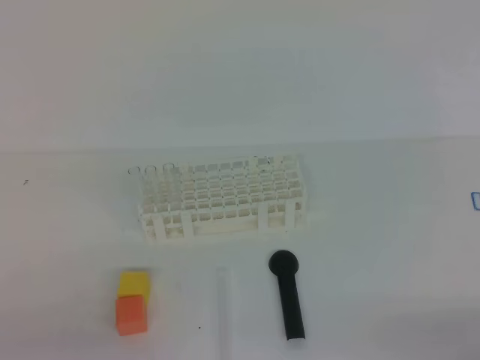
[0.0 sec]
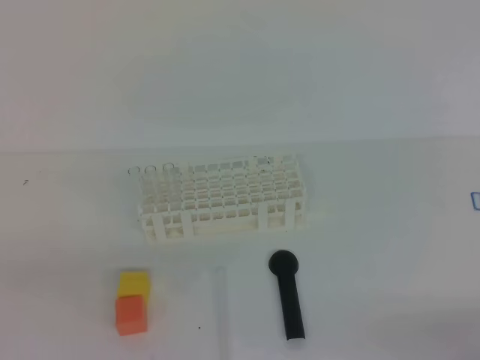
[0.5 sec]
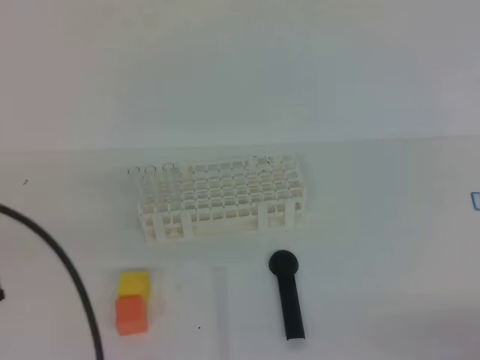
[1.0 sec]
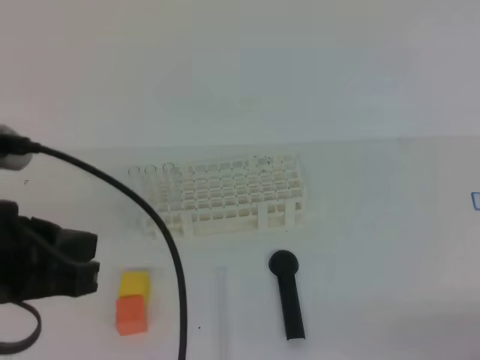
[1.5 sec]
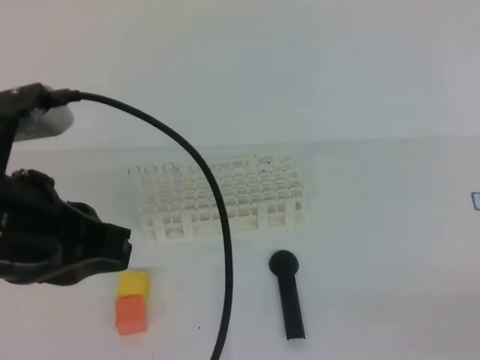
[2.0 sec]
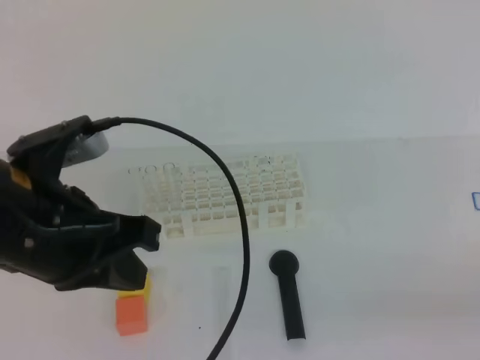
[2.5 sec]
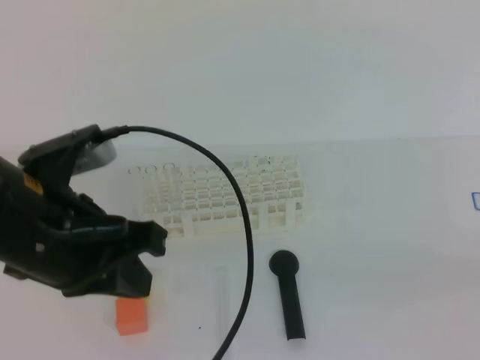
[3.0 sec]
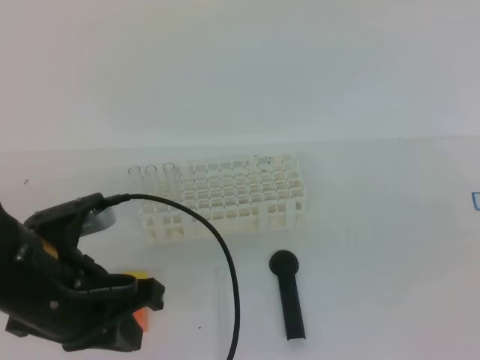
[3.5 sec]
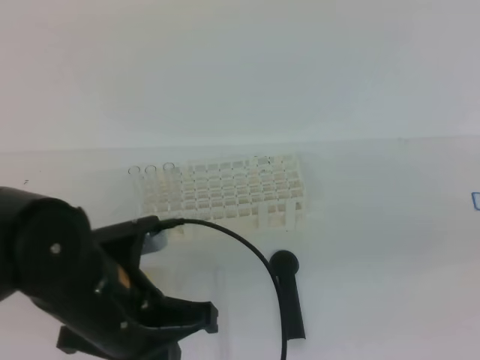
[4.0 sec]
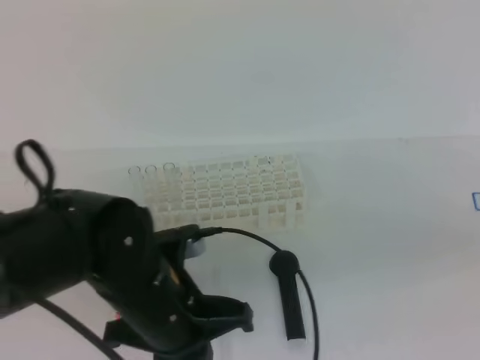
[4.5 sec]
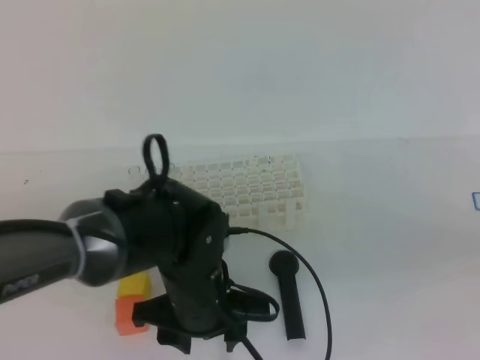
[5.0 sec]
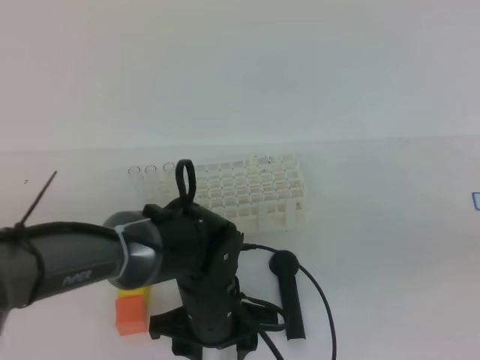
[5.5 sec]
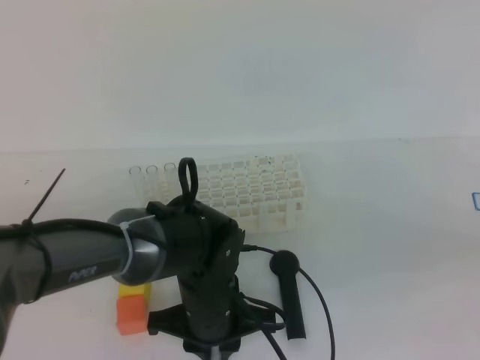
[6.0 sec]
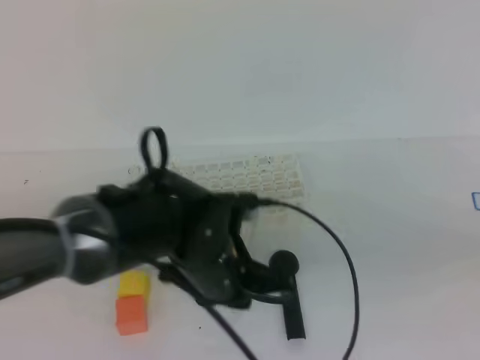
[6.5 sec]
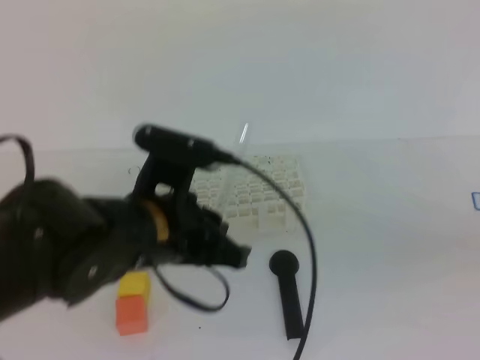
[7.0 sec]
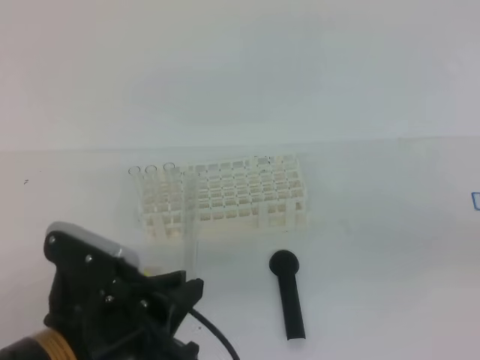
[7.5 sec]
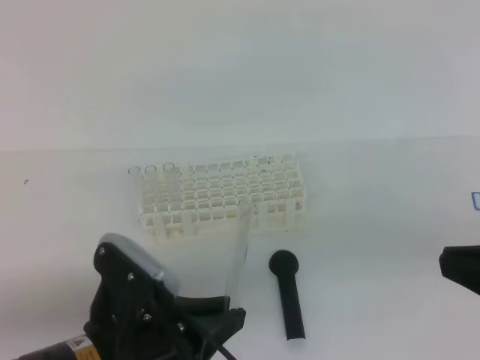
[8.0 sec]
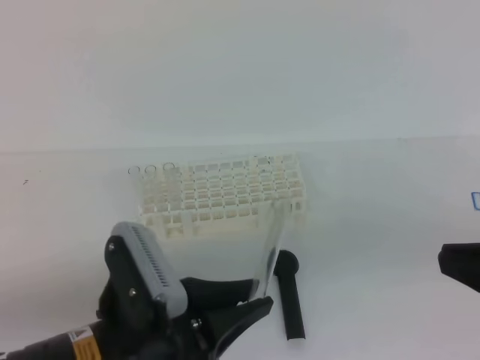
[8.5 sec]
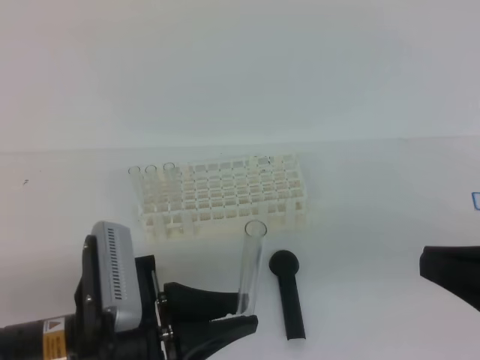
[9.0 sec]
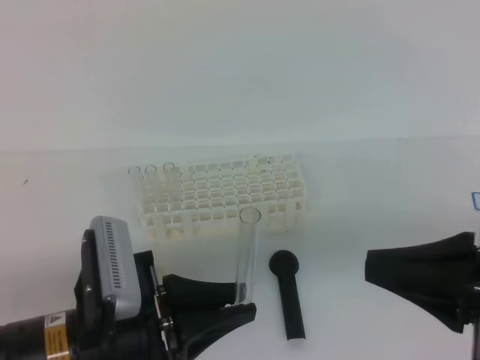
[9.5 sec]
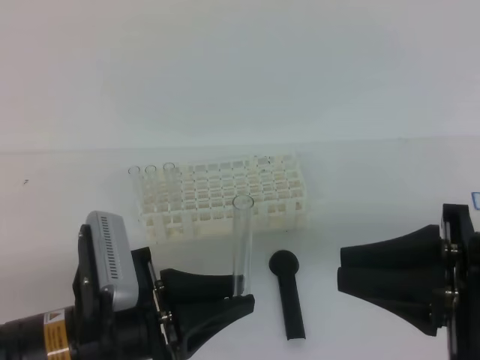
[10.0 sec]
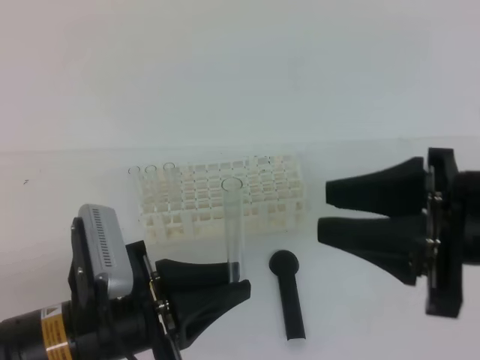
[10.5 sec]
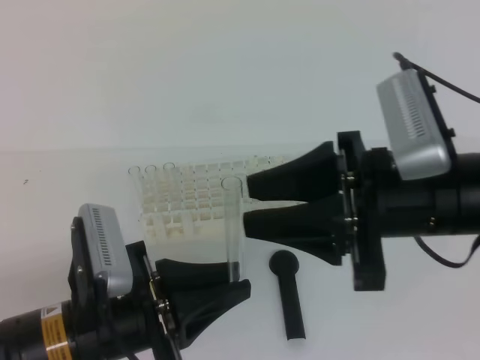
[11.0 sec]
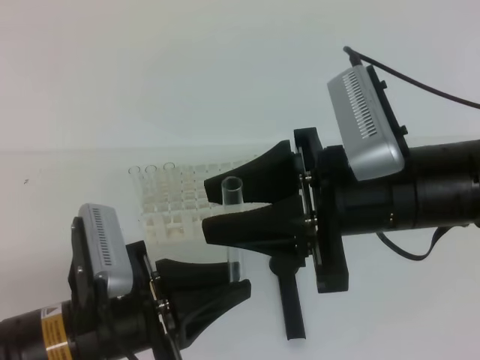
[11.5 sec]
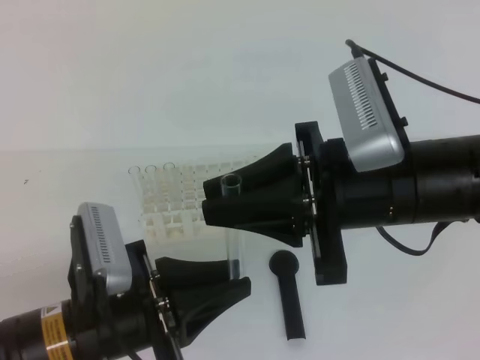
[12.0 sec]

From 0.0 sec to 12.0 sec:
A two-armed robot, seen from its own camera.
From 0.0 sec to 2.0 sec: The left gripper moves upward, forward and to the right, about 20 cm.
From 2.0 sec to 4.0 sec: The right gripper travels upward and forward by roughly 15 cm. The left gripper goes some 15 cm downward and to the right.
From 4.0 sec to 6.0 sec: The left gripper travels downward, to the right and forward by approximately 15 cm, and opens, then closes again.
From 6.0 sec to 8.0 sec: The left gripper heads backward, upward and to the left, covering roughly 15 cm.
From 8.0 sec to 10.0 sec: The right gripper ends up some 5 cm from where it was, and opens up.
From 10.0 sec to 12.0 sec: The right gripper moves to the left and forward, approximately 10 cm, and opens, then closes again.

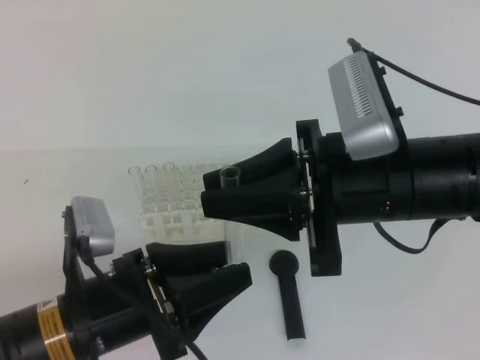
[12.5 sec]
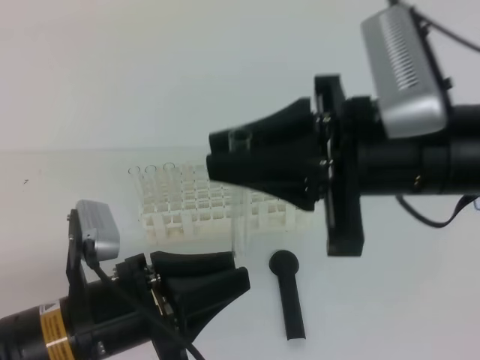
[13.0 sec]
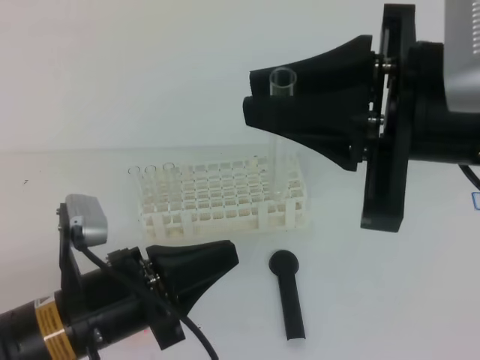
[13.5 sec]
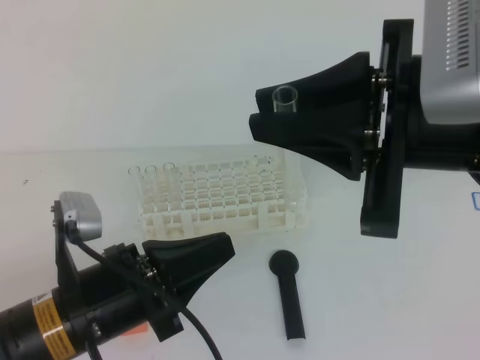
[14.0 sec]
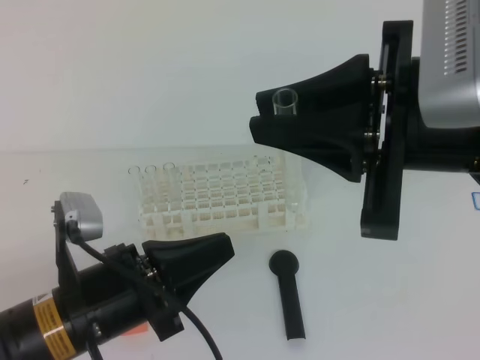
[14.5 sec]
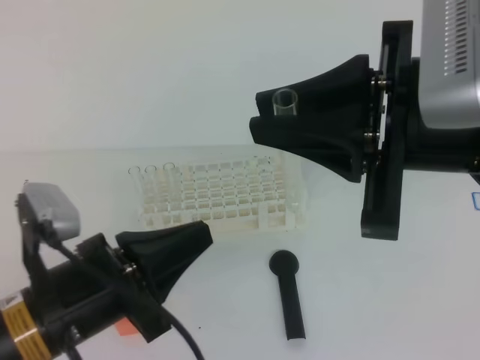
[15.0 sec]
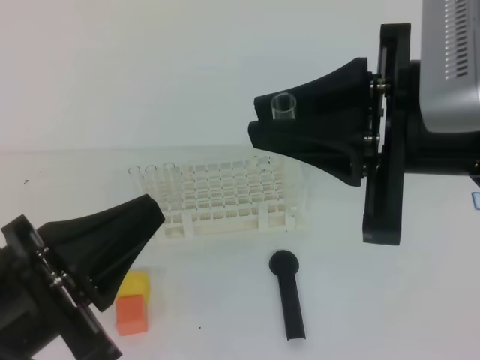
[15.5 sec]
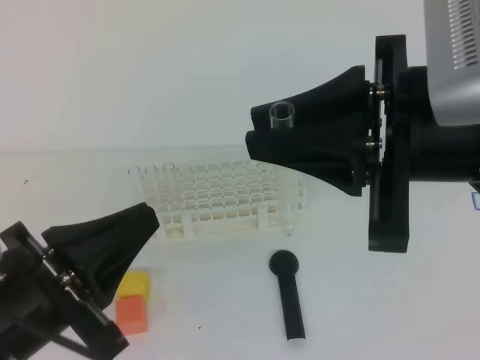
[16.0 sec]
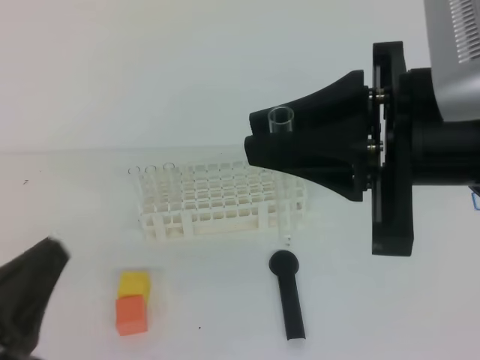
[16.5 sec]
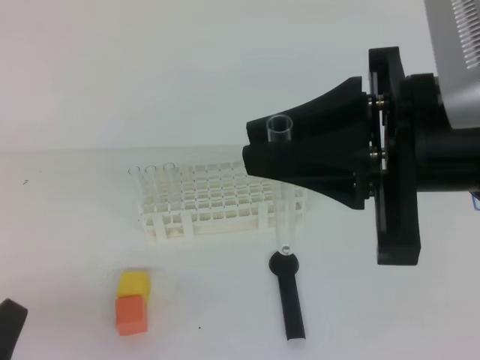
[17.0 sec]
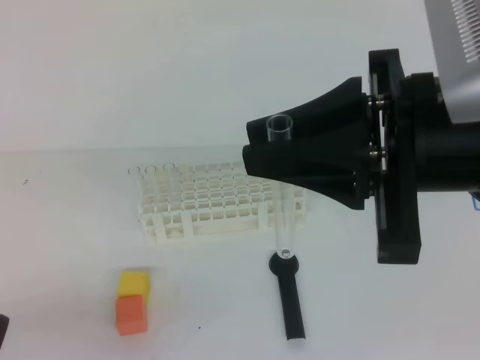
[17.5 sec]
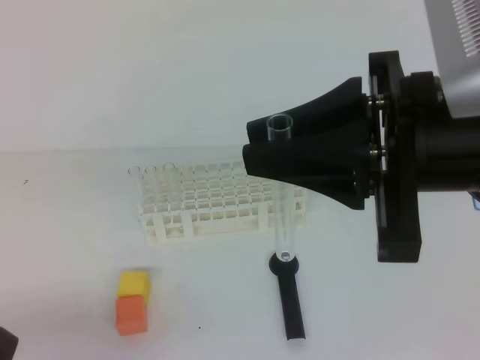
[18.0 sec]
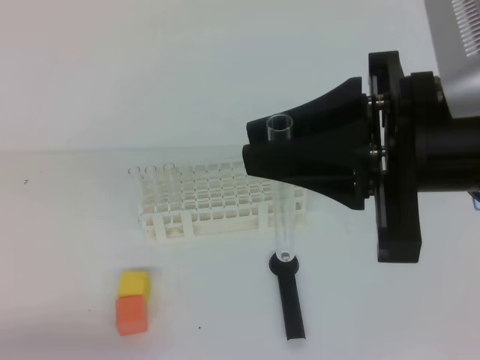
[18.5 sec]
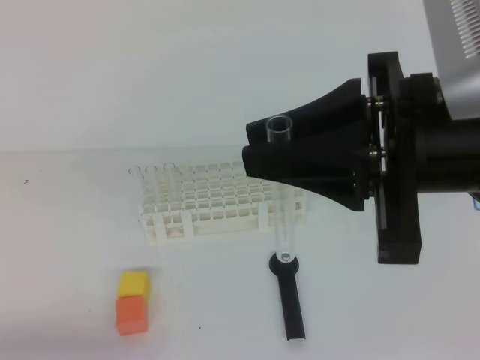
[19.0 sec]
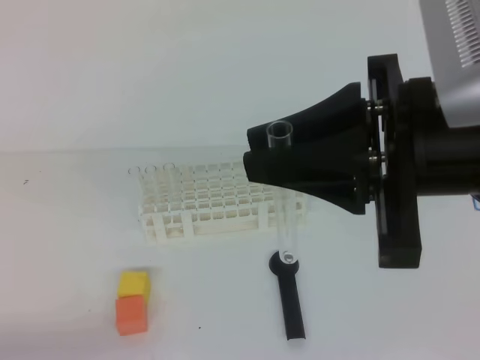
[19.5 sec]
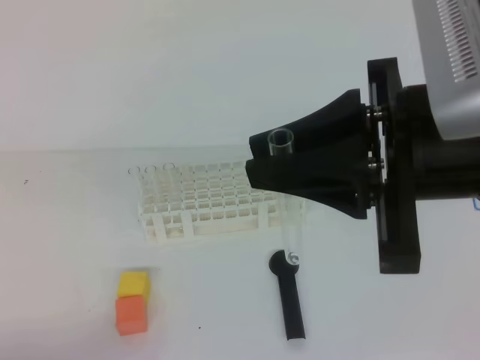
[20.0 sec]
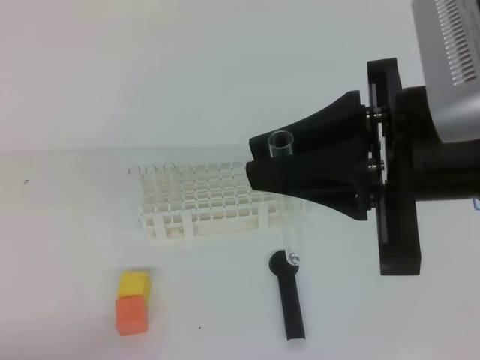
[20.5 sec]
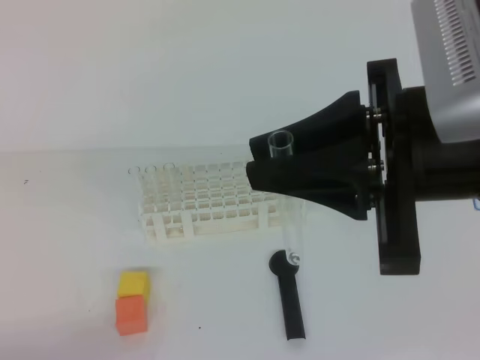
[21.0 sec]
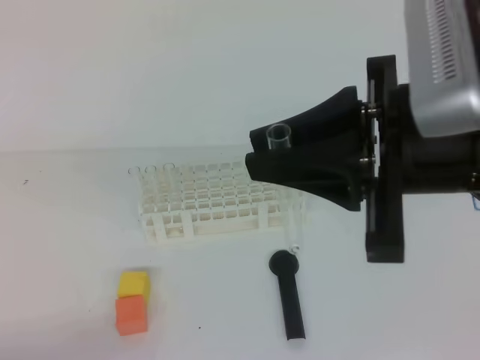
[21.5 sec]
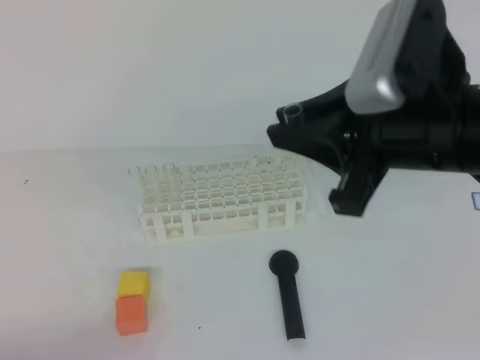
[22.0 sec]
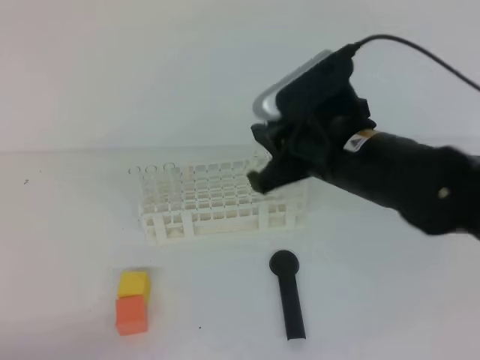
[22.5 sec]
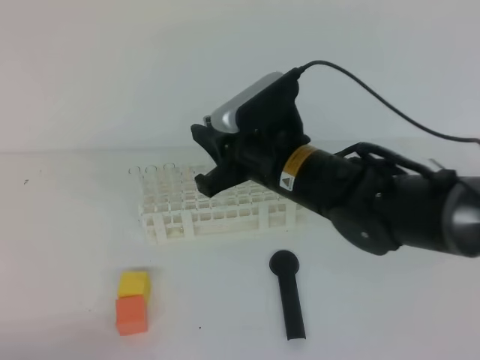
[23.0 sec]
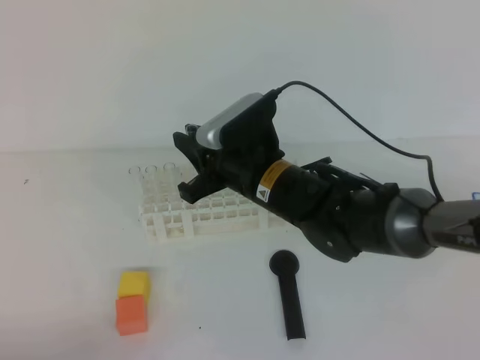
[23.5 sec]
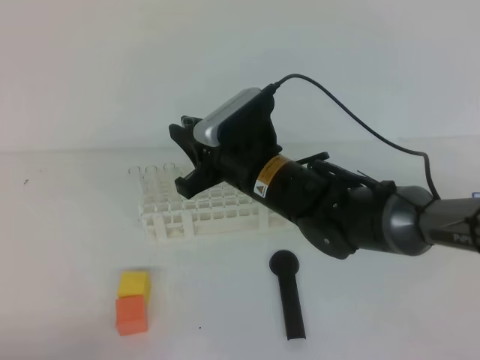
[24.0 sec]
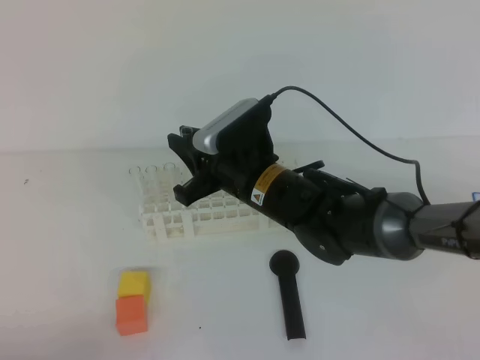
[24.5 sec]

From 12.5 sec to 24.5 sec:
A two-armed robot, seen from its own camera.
From 12.5 sec to 14.5 sec: The left gripper closes its fingers. Meanwhile the right gripper is displaced upward by about 5 cm.
From 14.5 sec to 16.5 sec: The left gripper is displaced backward and to the left by approximately 10 cm.
From 16.5 sec to 18.5 sec: The left gripper moves downward and to the left, some 10 cm.
From 20.5 sec to 22.5 sec: The right gripper travels forward and downward by some 15 cm.
From 22.5 sec to 24.5 sec: The right gripper goes roughly 15 cm downward, to the left and forward.

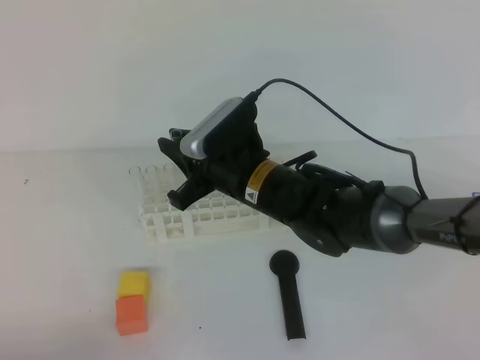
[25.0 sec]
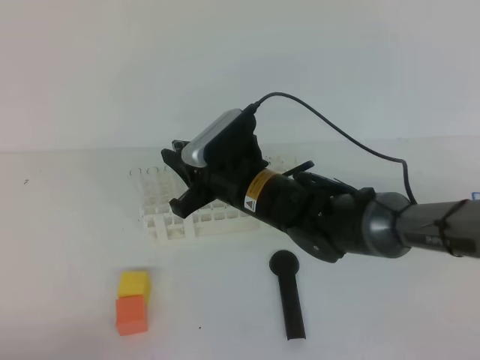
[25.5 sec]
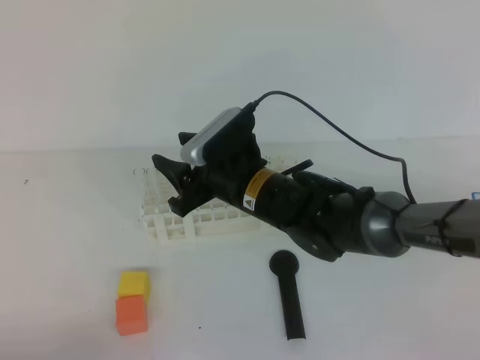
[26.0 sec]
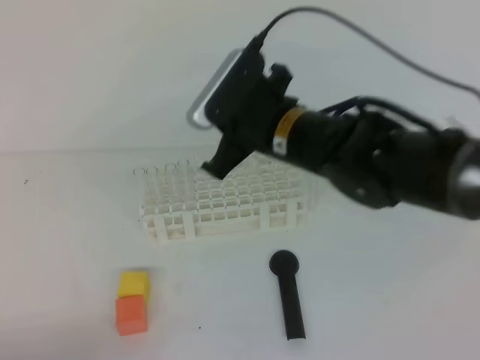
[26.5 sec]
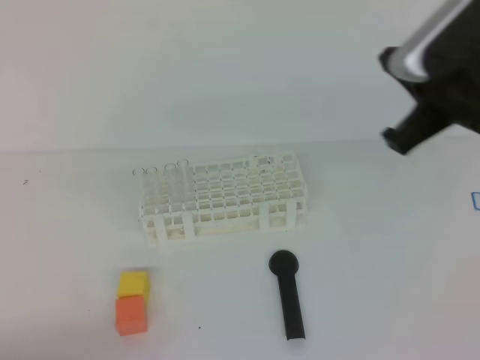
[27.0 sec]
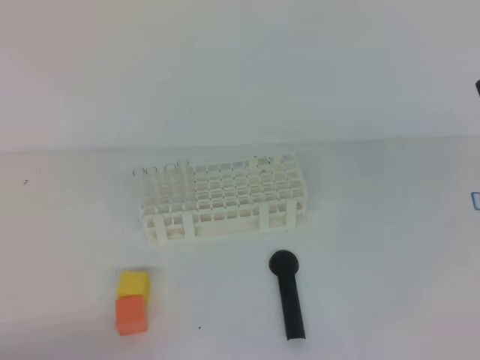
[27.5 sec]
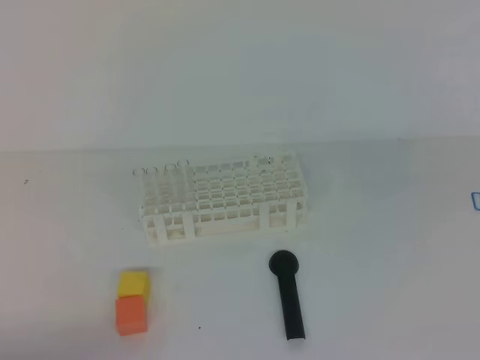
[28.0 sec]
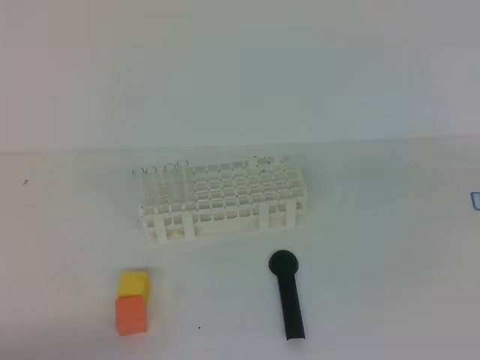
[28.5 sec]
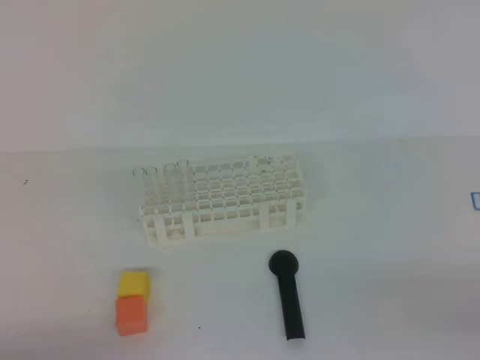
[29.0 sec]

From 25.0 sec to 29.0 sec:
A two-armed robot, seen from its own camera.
From 25.0 sec to 27.0 sec: The right gripper travels to the right and upward by approximately 25 cm, and opens and closes again.
From 27.0 sec to 29.0 sec: The right gripper travels backward, to the right and downward by some 30 cm.
